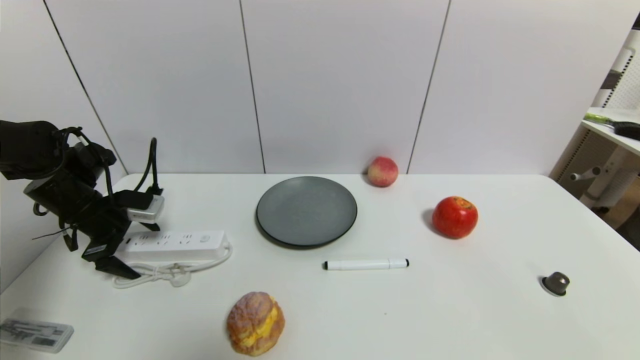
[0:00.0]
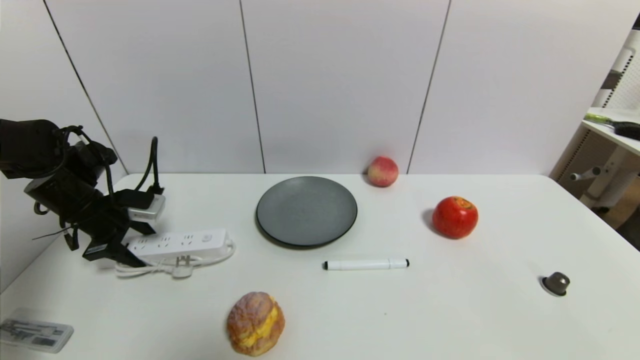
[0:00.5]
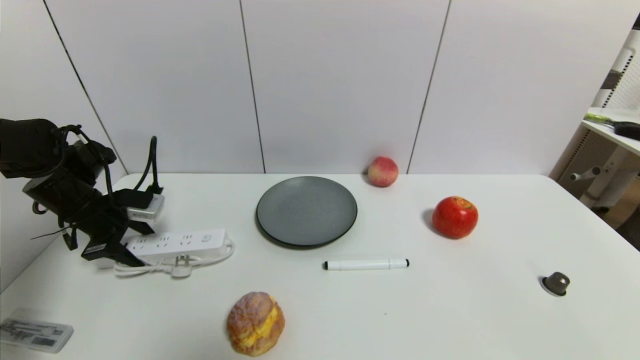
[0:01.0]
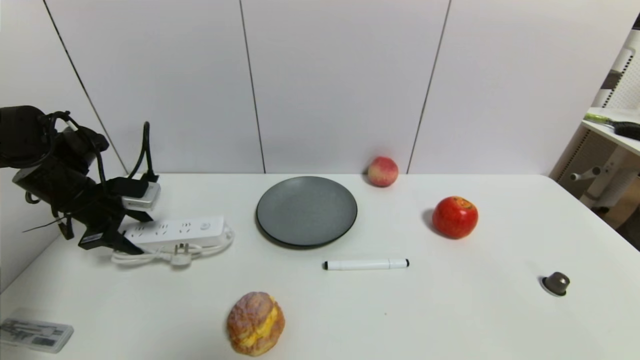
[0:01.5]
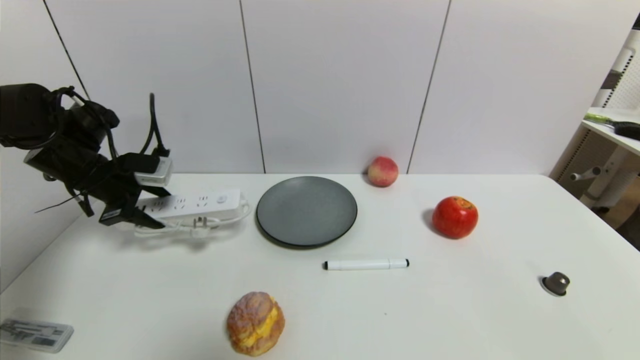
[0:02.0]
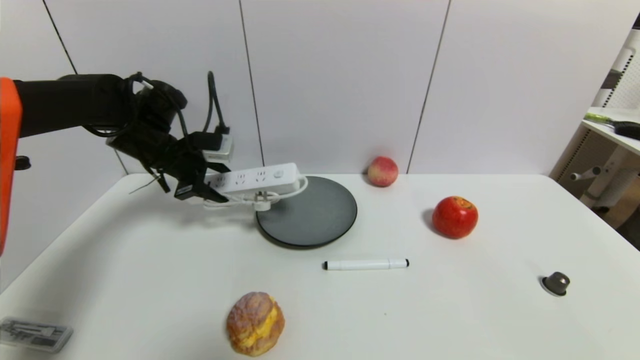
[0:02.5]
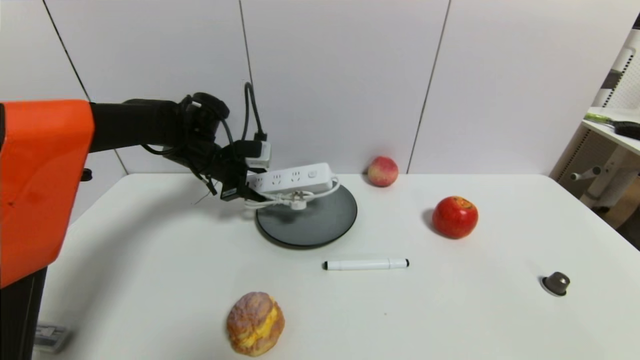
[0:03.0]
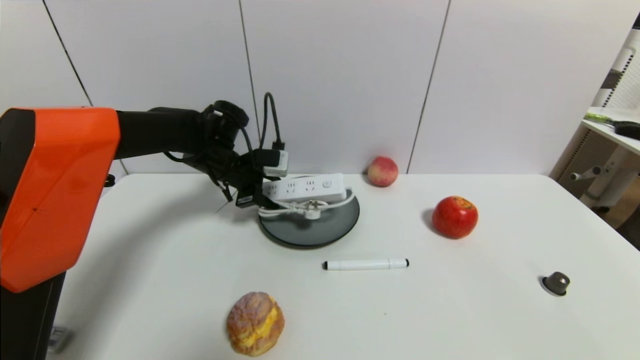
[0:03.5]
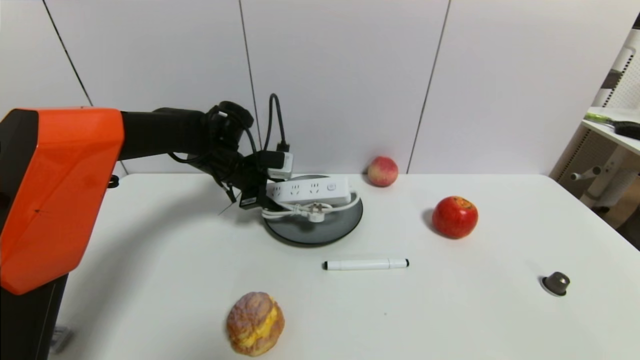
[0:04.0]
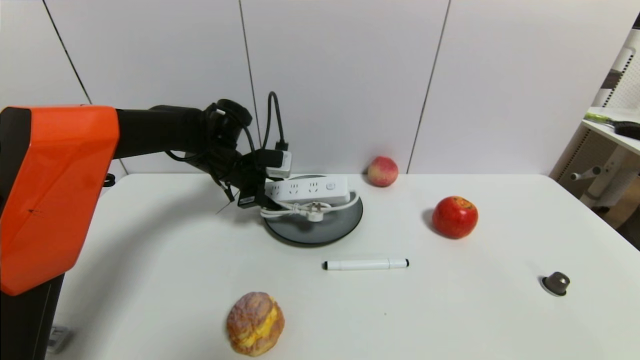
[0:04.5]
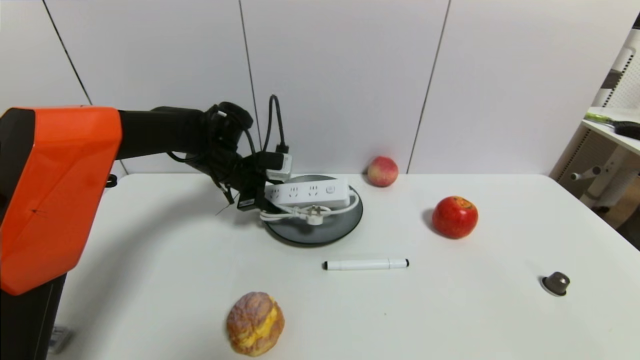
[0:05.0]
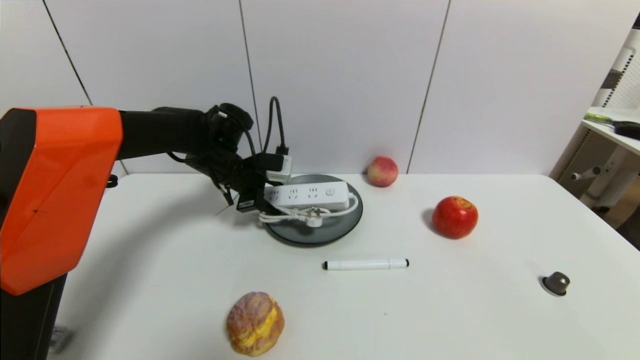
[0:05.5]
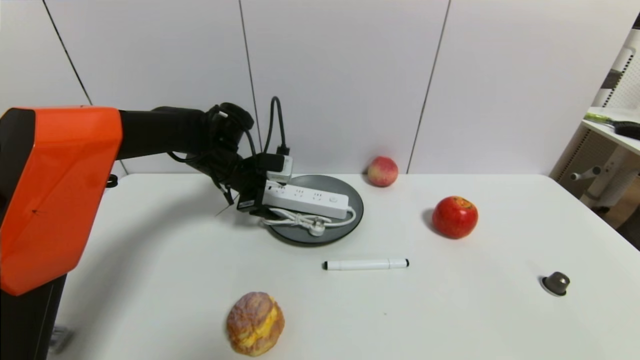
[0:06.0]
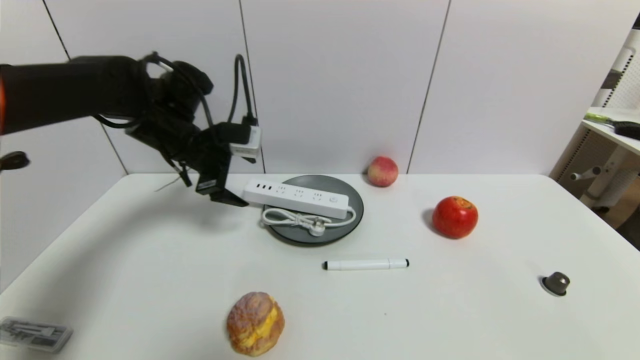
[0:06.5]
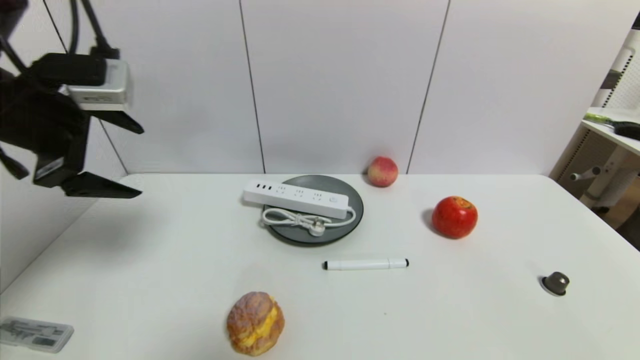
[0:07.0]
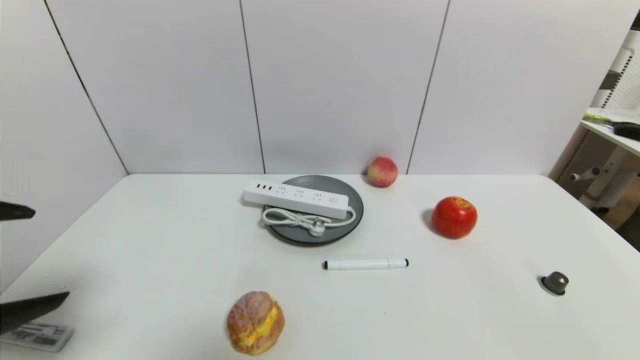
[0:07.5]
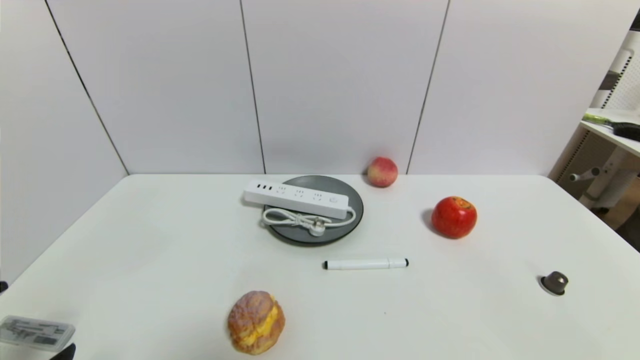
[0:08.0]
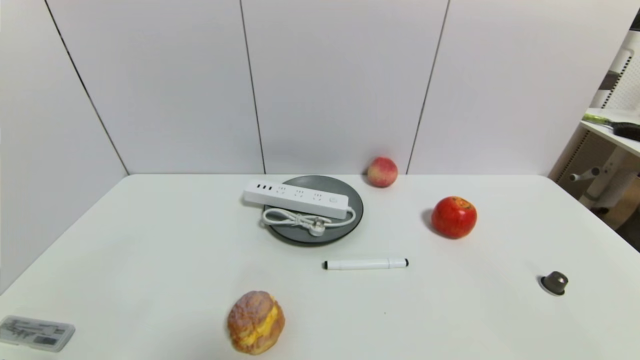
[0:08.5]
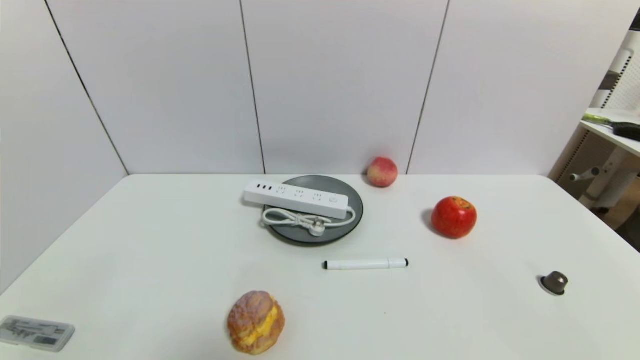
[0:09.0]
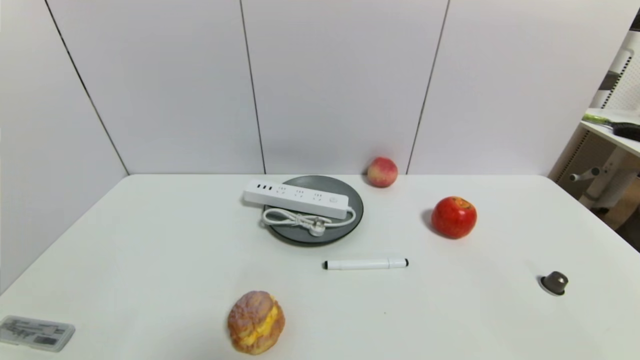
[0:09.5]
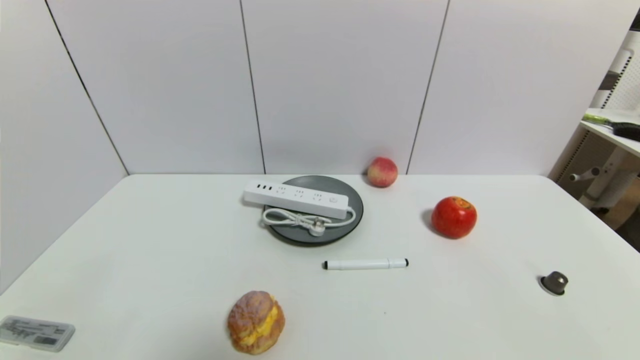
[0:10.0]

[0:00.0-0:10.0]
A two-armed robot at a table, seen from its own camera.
Task of the whole recording: use a gripper to pick the target object and place on the gray plate.
Step, 0:01.0 to 0:06.0: Place the plugboard on the gray plate with the left gripper.
0:00.0 to 0:02.0: The left gripper moves upward, roughly 5 cm, and closes up.
0:02.0 to 0:04.0: The left gripper travels to the right by roughly 20 cm.
0:04.0 to 0:06.0: The left gripper opens.
0:06.0 to 0:08.0: The left gripper shifts about 40 cm backward, and opens.
